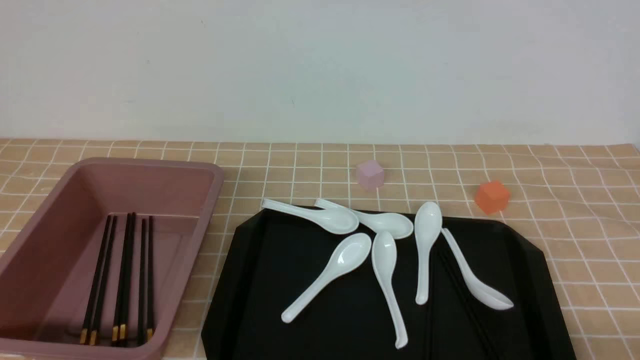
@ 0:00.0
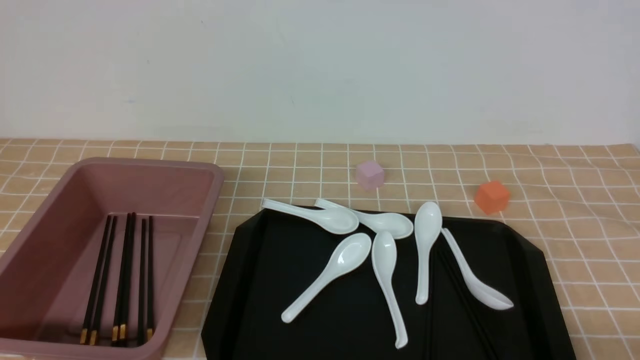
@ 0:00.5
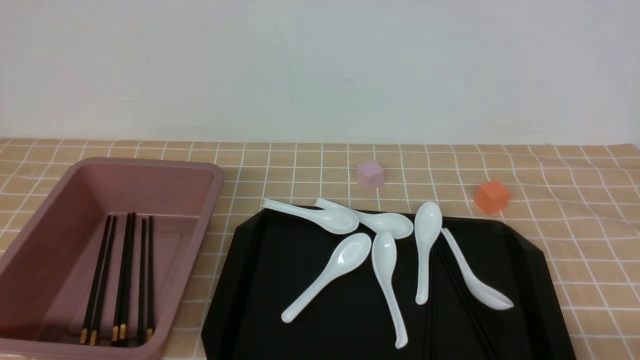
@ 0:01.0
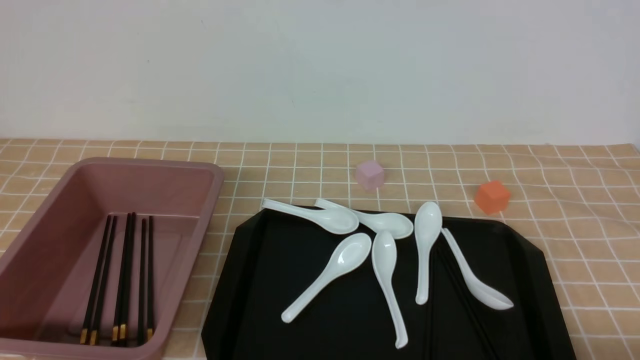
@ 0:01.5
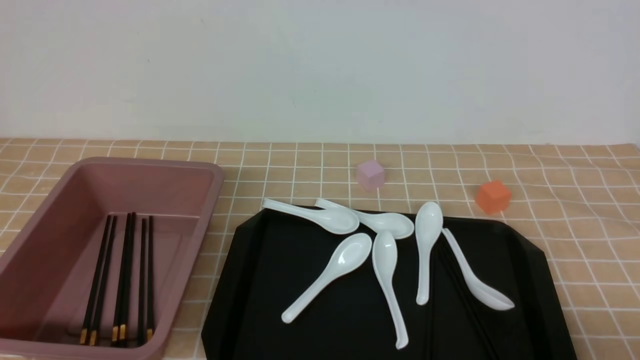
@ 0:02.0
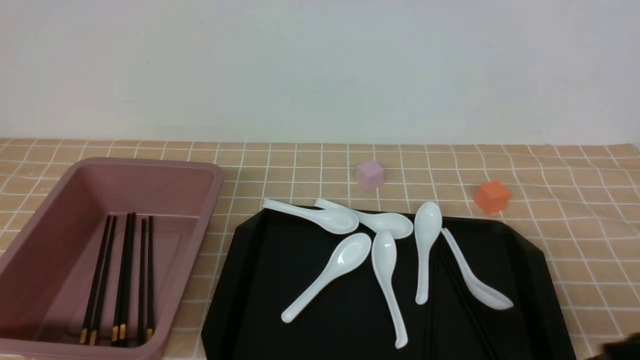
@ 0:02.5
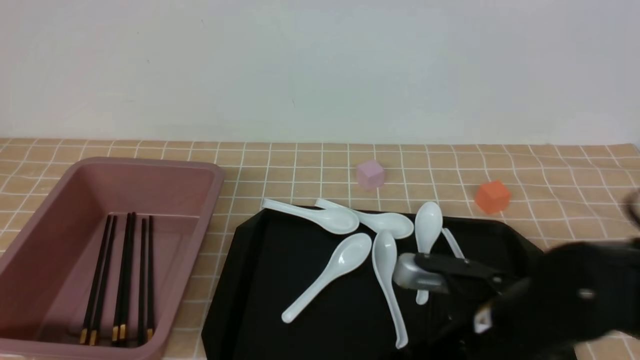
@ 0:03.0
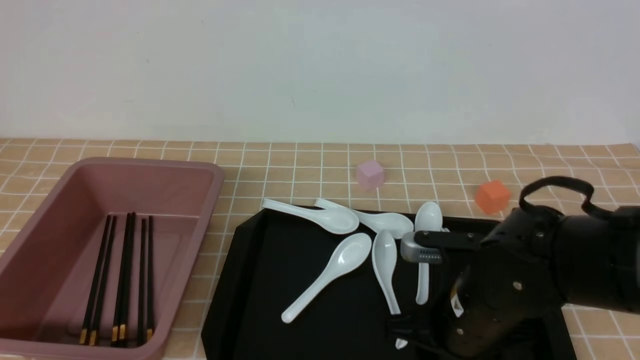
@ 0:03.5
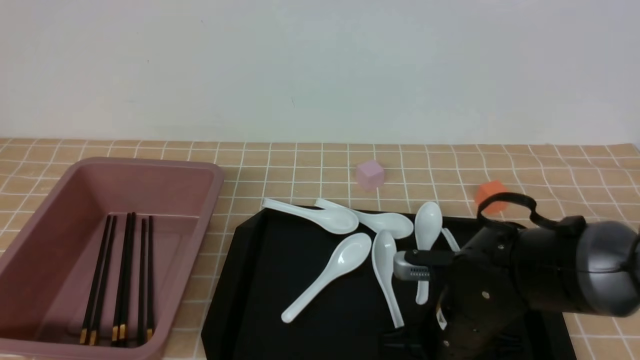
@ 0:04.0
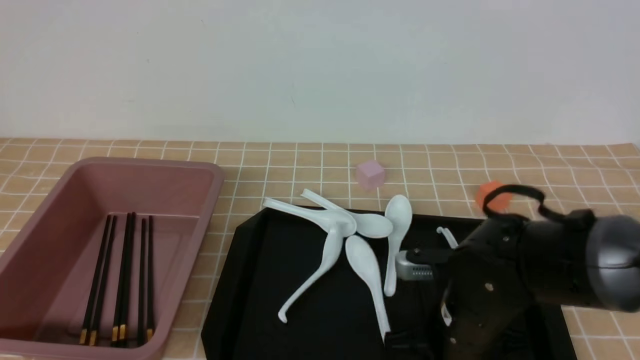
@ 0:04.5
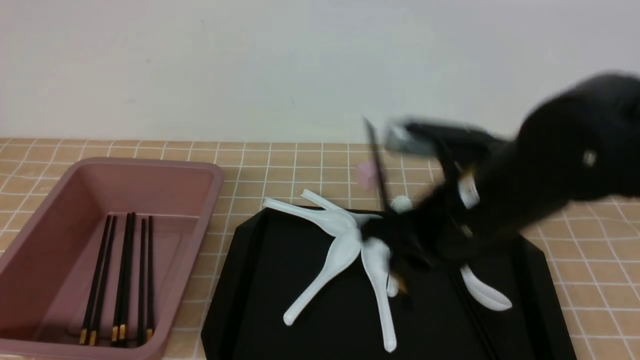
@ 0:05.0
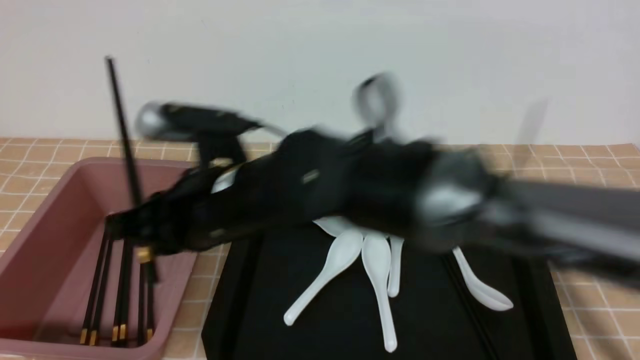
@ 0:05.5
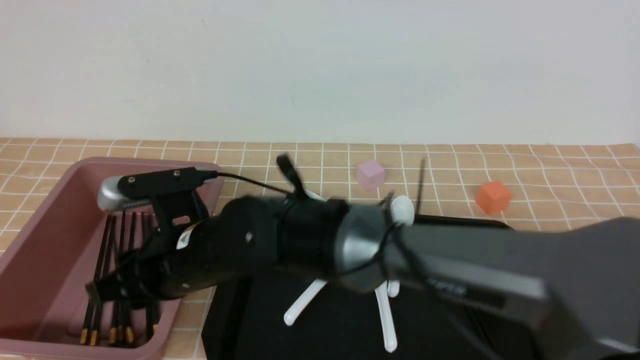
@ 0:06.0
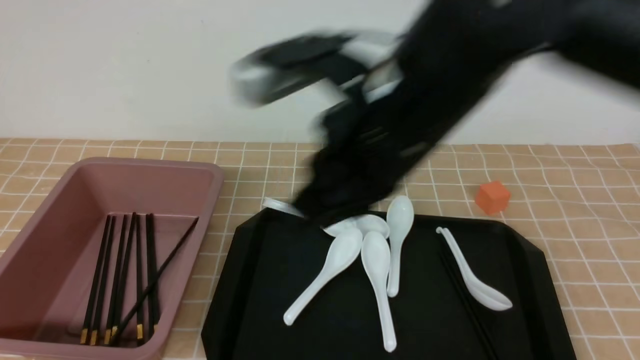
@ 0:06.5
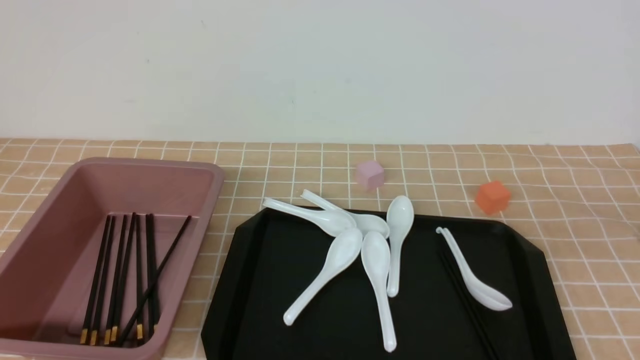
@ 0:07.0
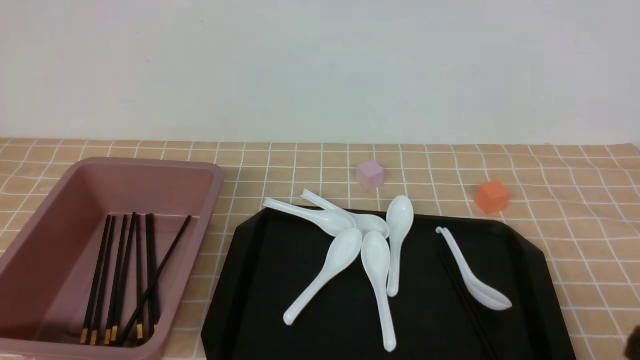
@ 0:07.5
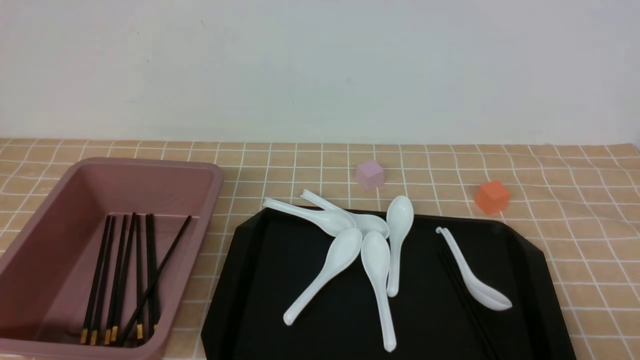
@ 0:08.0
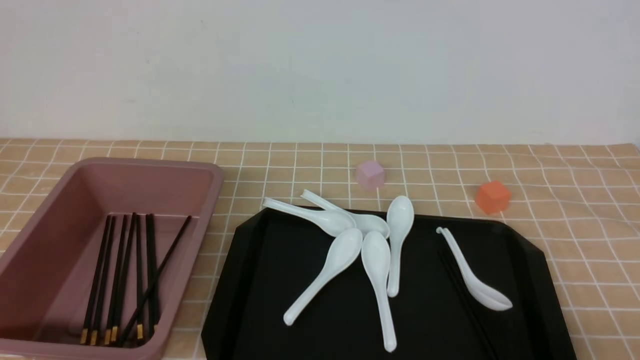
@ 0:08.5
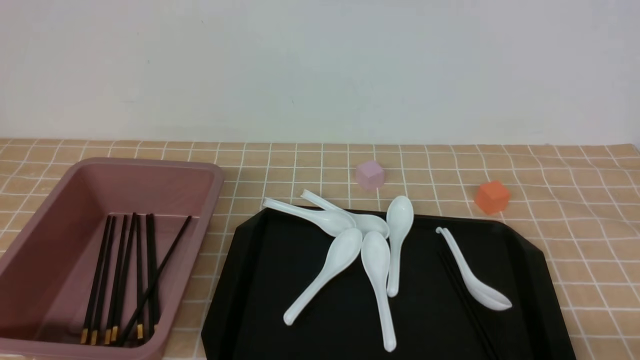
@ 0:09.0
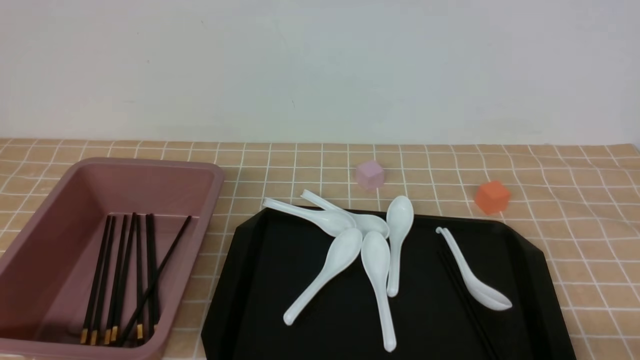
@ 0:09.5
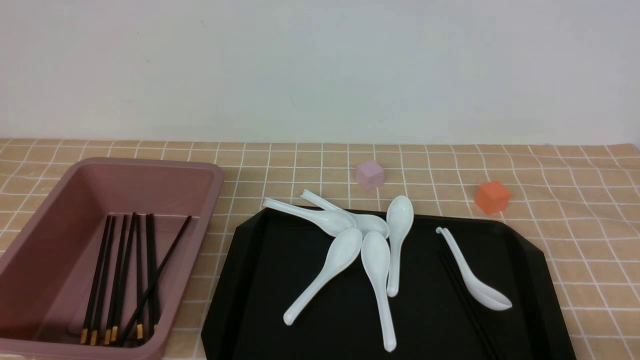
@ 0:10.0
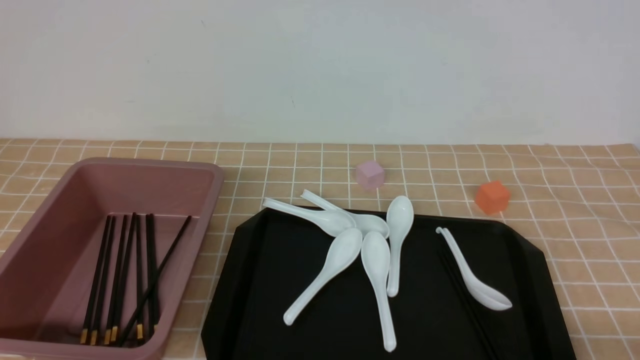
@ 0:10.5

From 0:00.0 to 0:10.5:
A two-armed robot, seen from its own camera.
Step, from 0:00.0 to 0:04.5: use the right arm to grab a pair of chopsticks.
Step, from 0:05.0 to 0:06.5: use the right arm to put the chopsticks into the lunch box.
From 0:02.0 to 0:04.0: The right gripper moves forward, to the left and downward, about 25 cm, and closes and opens again.
From 0:04.0 to 0:06.5: The right gripper swings up and down, about 25 cm each way, with 2 reversals, and closes its fingers.
From 0:06.5 to 0:08.5: The right gripper is displaced to the right, backward and downward by approximately 35 cm.
